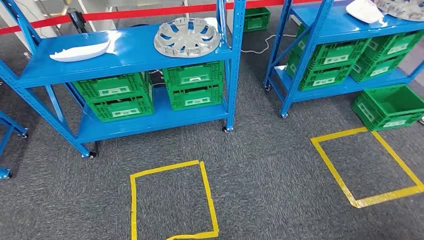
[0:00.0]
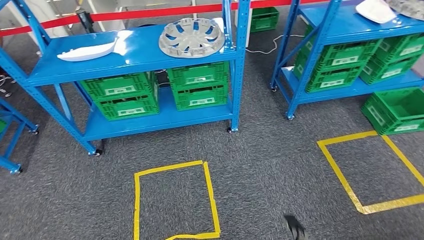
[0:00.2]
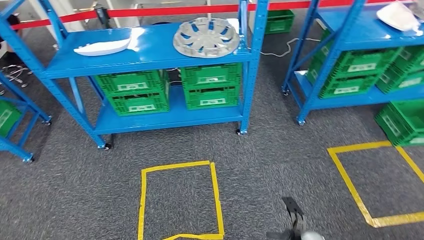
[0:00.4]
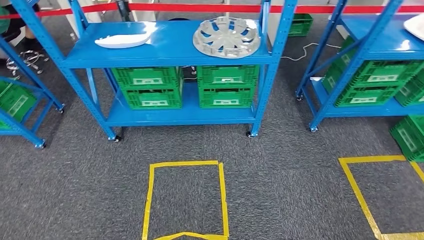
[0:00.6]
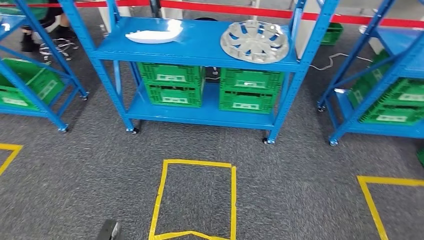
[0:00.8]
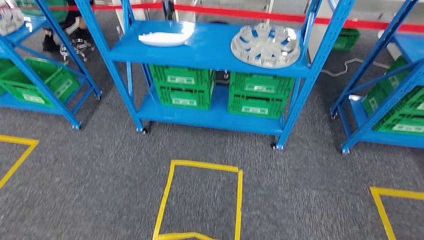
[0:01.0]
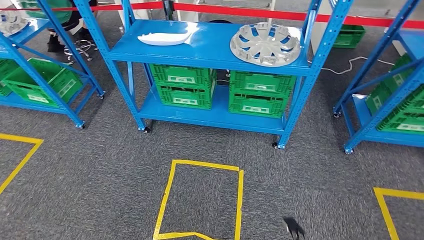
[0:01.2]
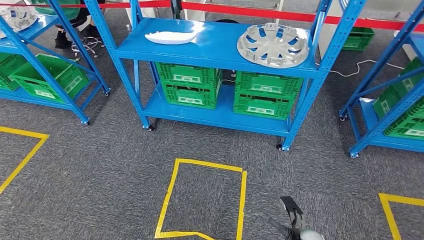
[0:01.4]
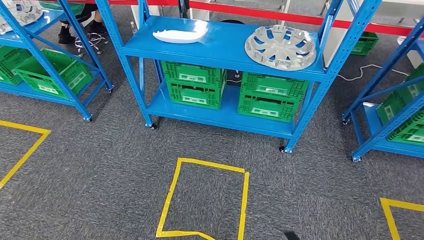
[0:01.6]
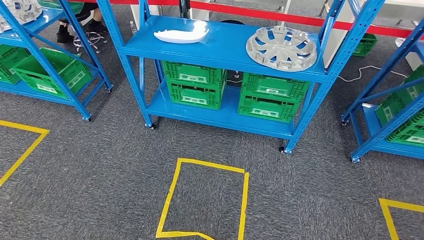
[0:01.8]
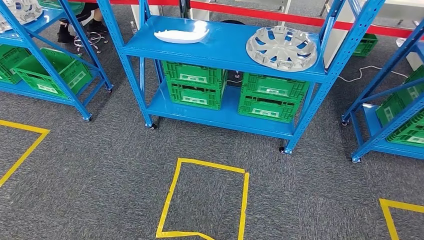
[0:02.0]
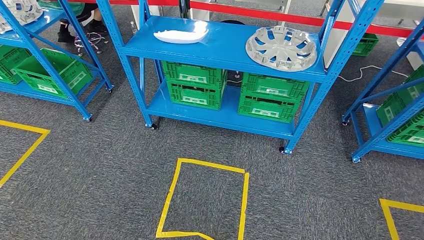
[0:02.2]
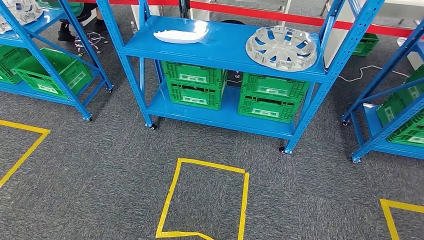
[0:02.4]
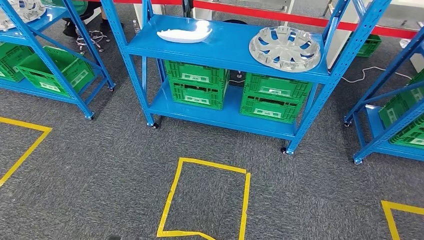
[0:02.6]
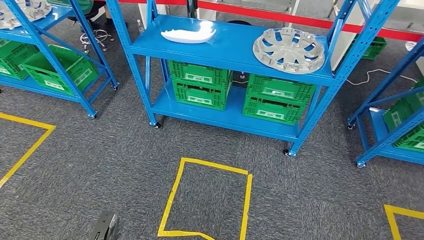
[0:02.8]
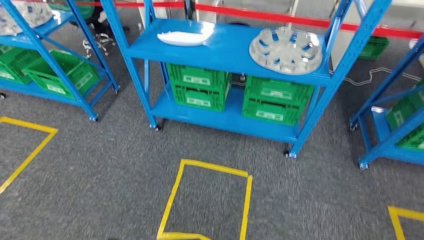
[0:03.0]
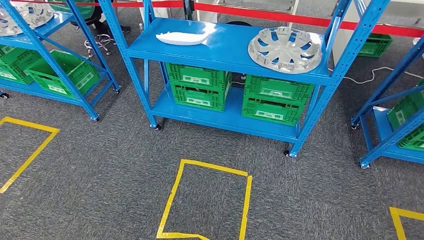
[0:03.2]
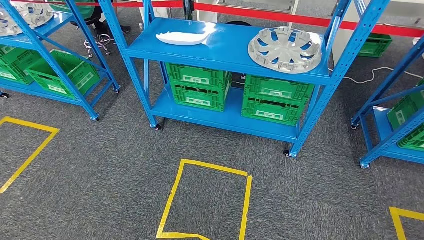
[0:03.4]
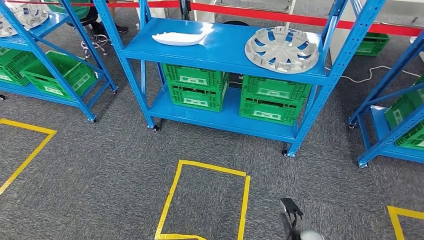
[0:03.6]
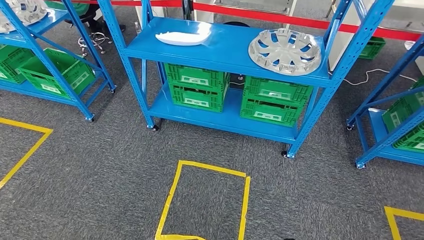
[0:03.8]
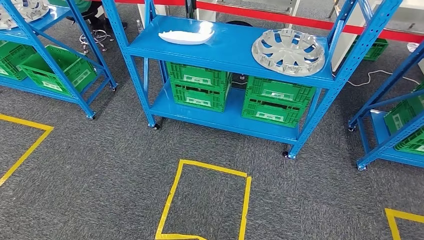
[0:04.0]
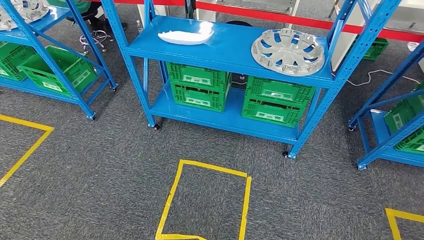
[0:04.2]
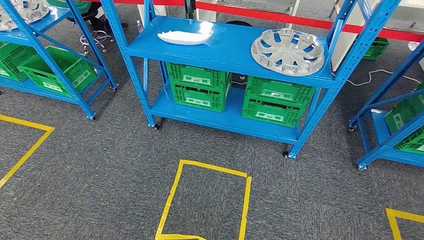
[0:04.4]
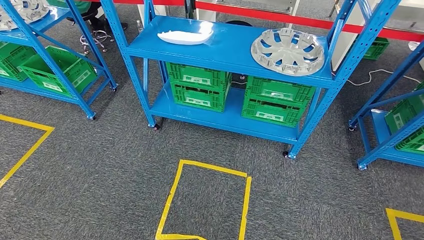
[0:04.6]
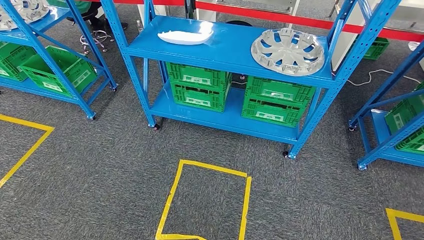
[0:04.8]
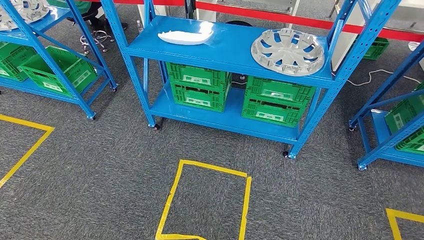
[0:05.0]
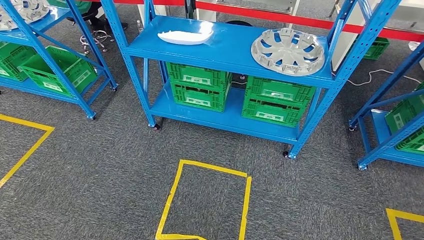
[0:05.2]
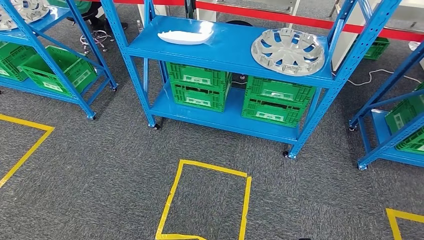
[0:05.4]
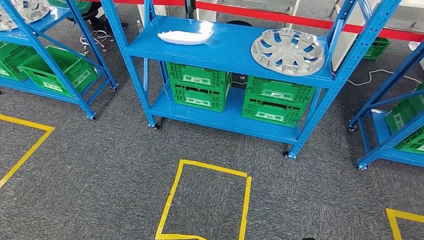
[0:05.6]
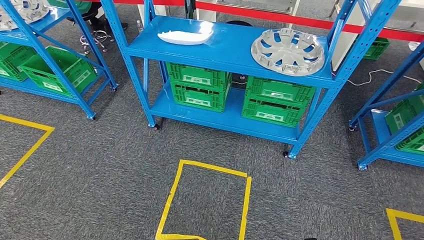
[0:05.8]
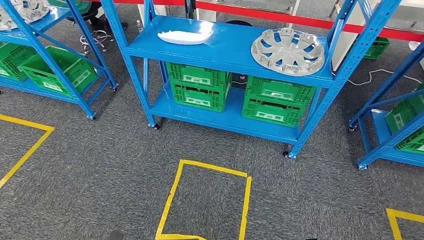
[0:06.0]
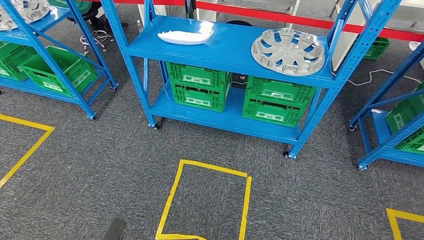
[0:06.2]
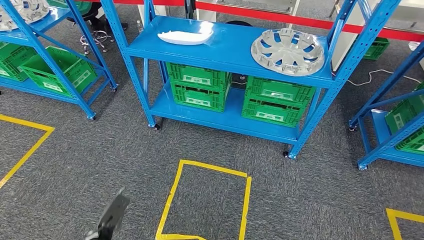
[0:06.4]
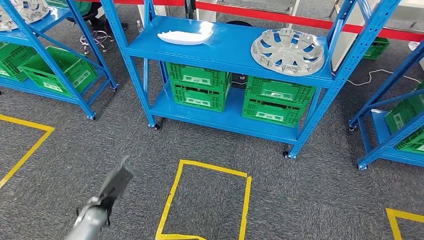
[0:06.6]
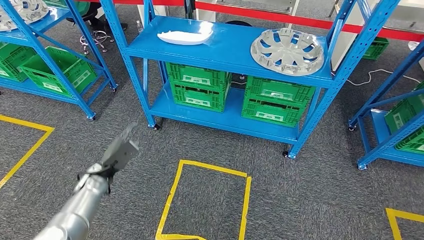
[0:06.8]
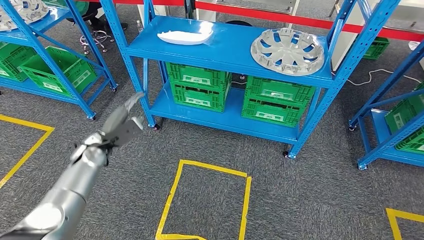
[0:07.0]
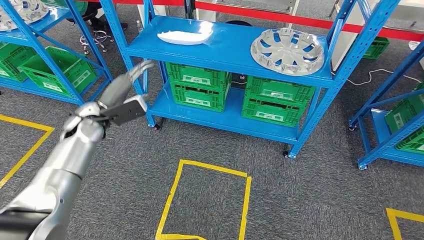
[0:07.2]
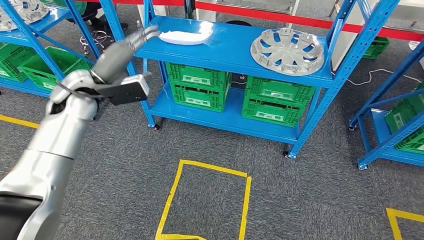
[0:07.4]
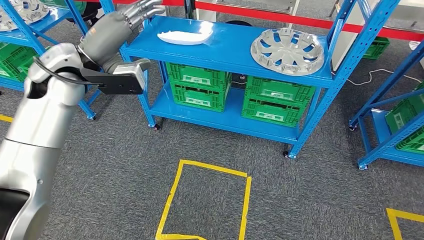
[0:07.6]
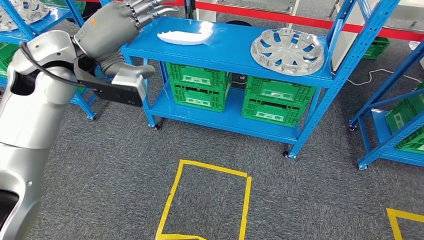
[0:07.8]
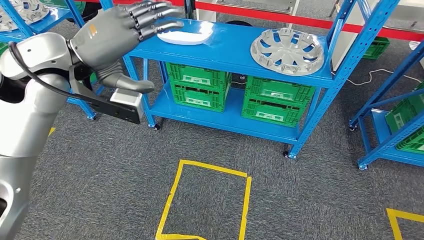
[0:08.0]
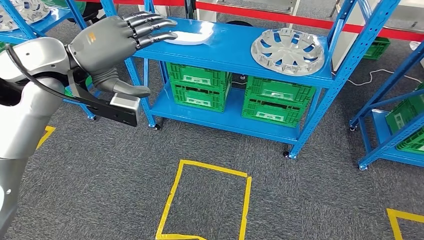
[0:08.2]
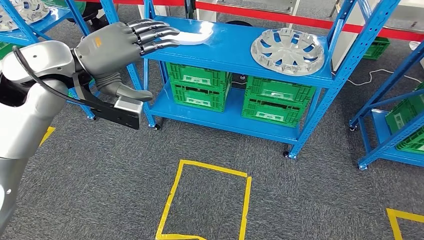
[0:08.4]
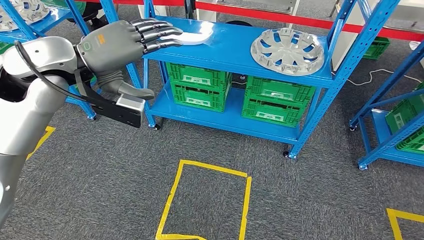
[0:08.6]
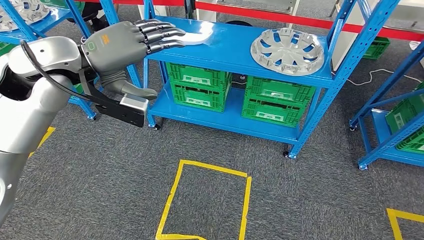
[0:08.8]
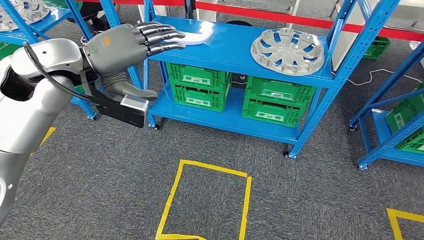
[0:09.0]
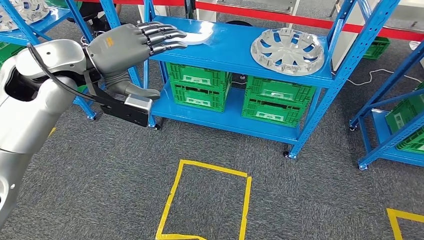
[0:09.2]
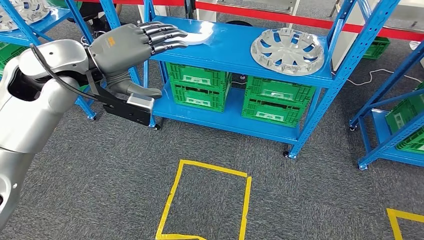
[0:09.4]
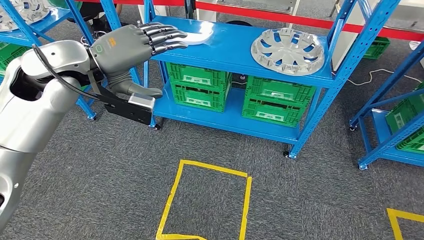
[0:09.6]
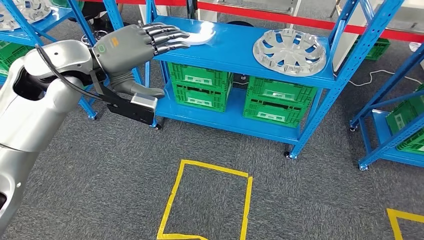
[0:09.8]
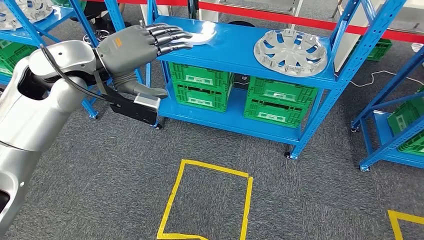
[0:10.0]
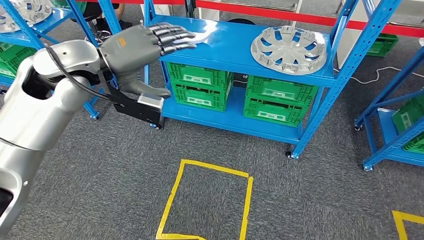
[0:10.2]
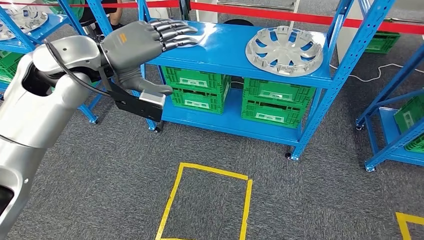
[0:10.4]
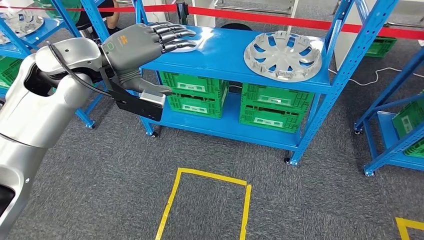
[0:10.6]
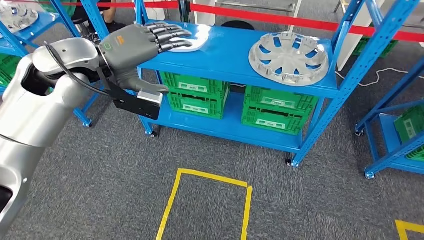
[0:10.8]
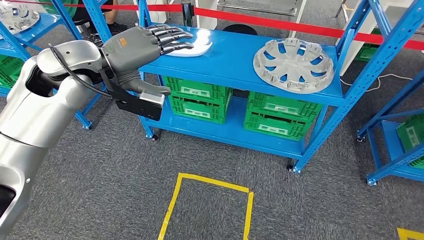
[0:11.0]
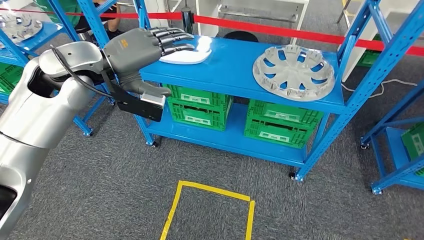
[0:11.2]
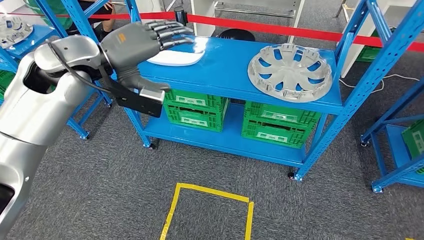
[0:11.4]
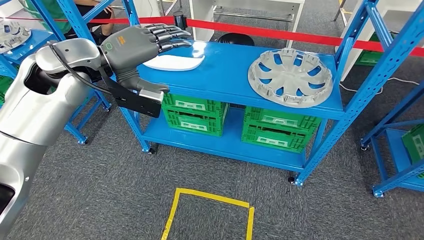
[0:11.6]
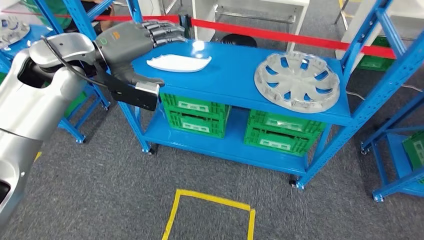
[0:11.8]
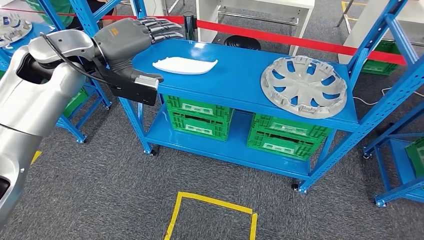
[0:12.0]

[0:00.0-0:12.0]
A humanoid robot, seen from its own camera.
3.0 to 4.4 s: The left hand goes approximately 10 cm backward, while the right hand moves forward, approximately 10 cm.
6.0 to 7.6 s: The left hand travels upward and forward by about 60 cm.

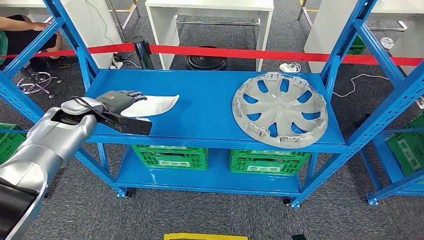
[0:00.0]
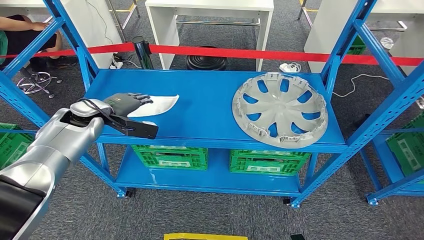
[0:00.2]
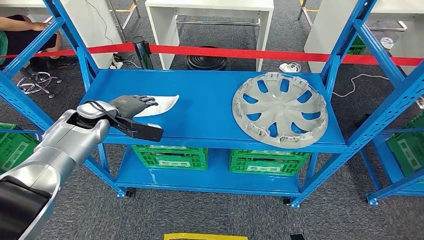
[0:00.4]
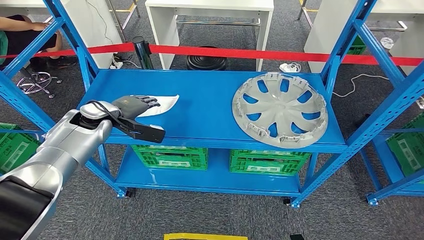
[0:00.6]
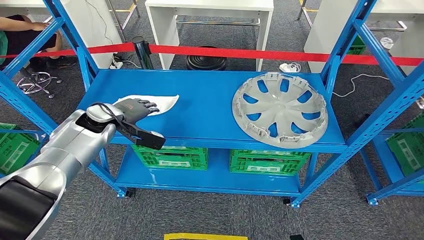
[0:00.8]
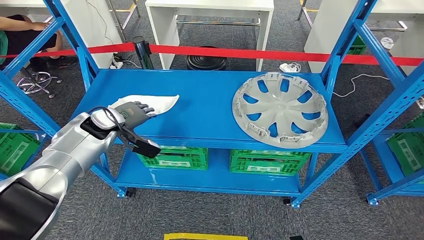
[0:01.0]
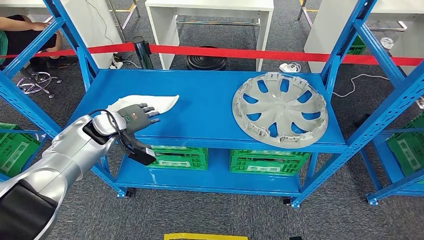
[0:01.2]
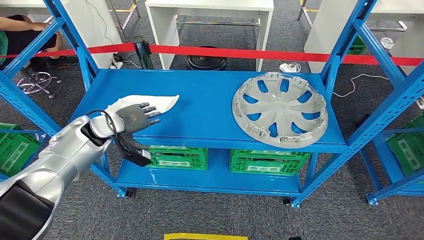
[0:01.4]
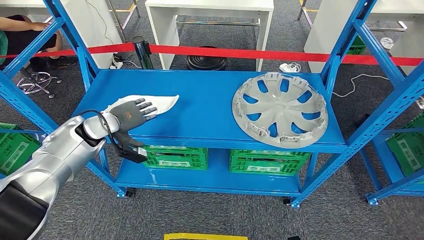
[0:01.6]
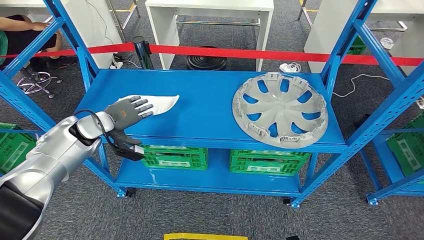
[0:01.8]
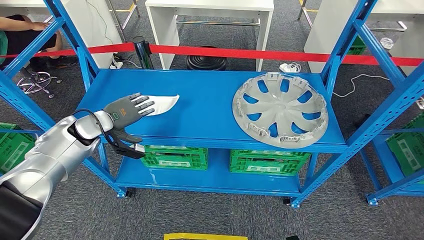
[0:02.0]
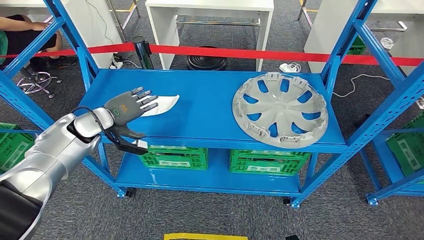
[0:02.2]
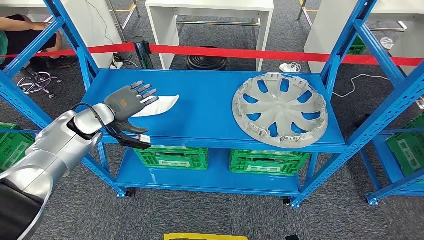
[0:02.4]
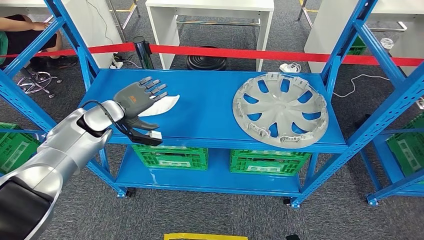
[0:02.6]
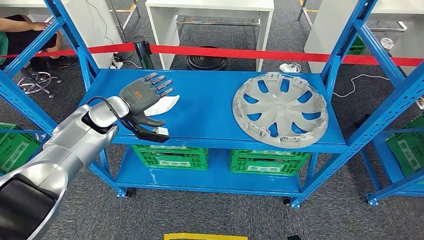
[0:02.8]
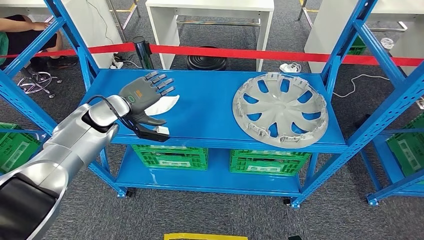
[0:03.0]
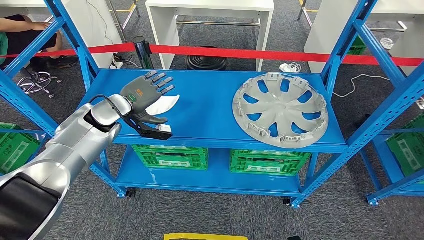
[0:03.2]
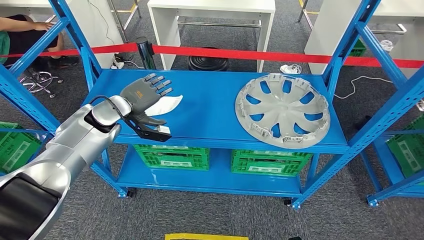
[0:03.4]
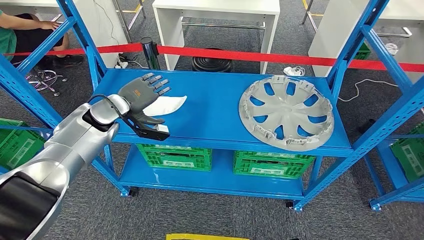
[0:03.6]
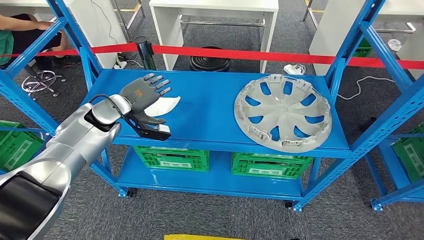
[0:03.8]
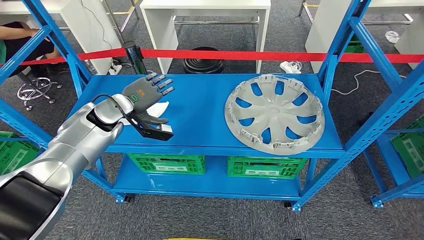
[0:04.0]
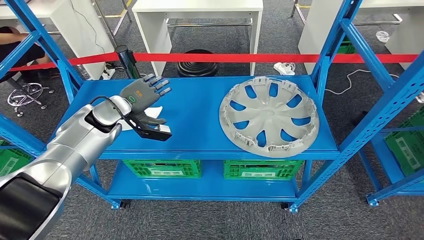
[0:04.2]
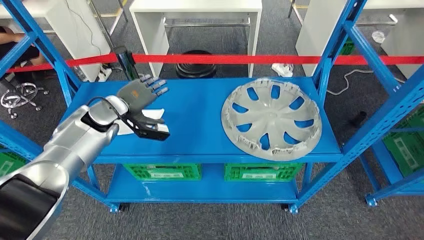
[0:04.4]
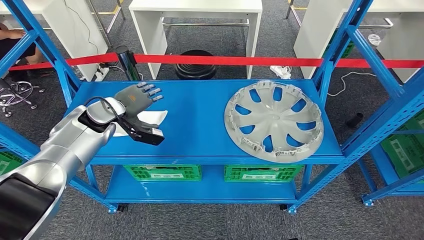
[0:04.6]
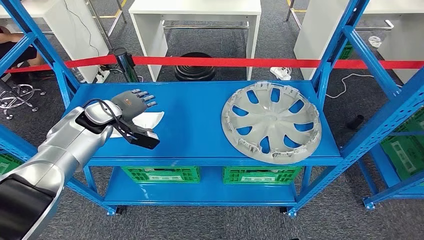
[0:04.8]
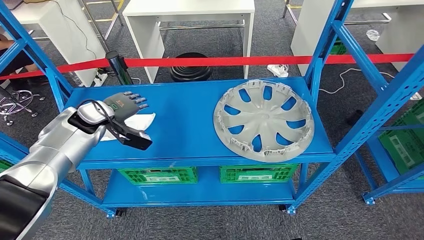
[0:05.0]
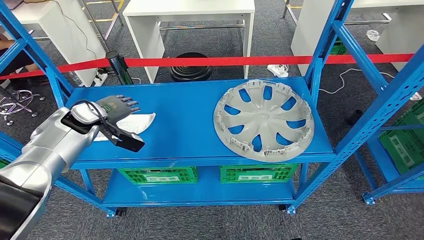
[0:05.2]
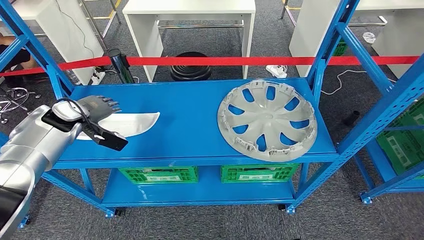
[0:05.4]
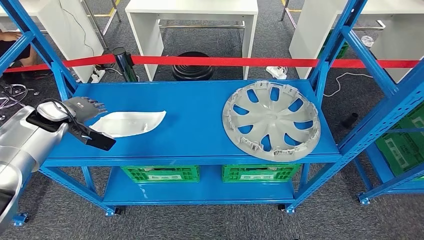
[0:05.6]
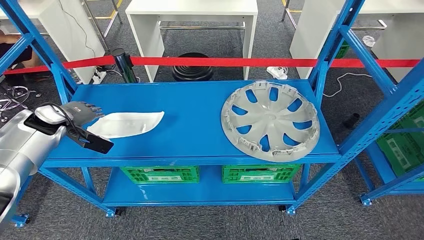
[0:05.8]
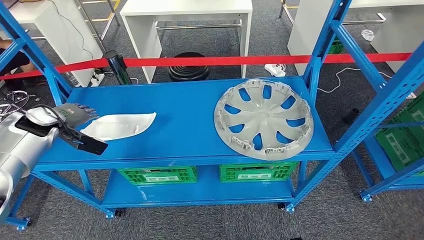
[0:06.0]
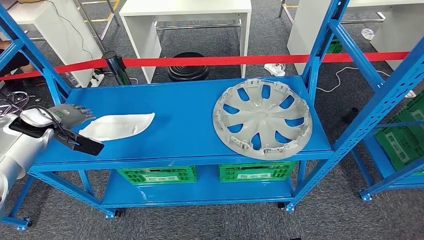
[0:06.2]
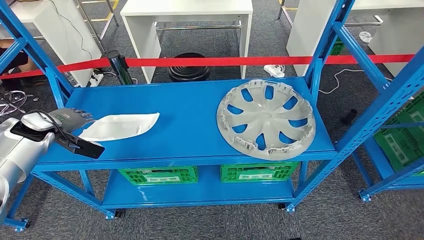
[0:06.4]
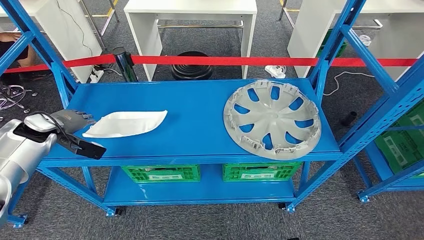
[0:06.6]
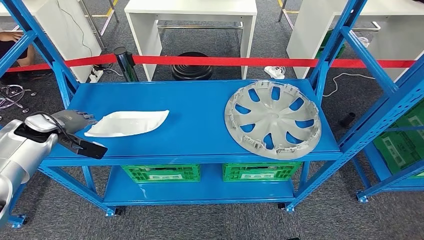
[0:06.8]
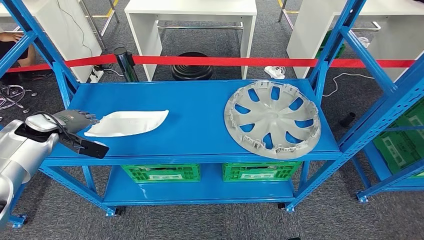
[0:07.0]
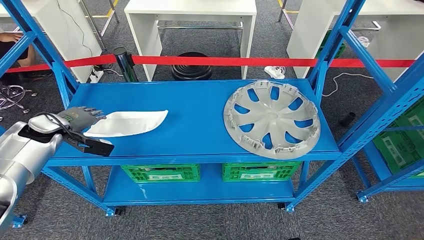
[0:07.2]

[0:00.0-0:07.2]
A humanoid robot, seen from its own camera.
5.8 to 7.2 s: The hands move only a little.
